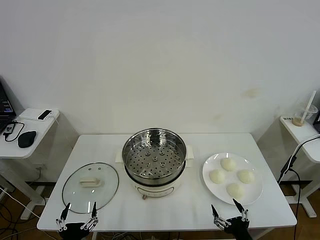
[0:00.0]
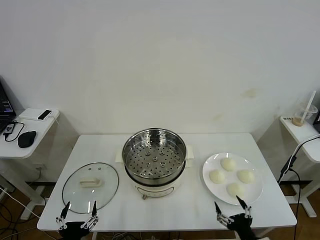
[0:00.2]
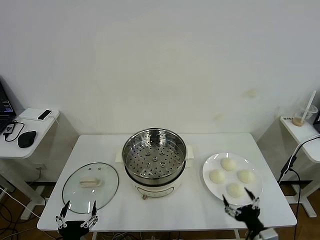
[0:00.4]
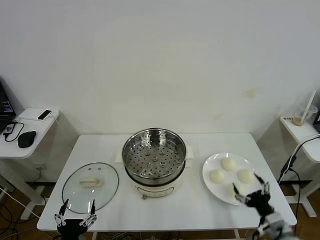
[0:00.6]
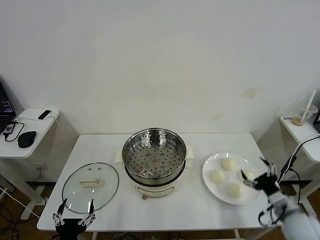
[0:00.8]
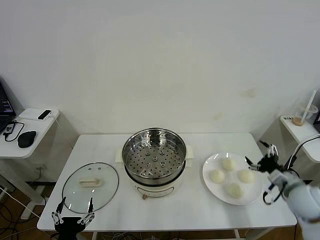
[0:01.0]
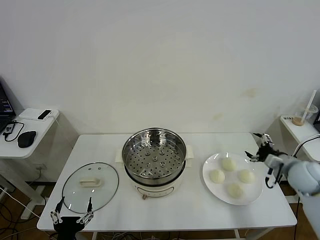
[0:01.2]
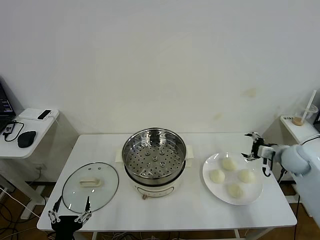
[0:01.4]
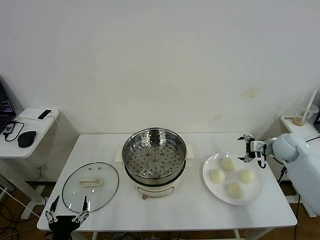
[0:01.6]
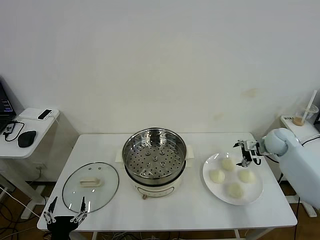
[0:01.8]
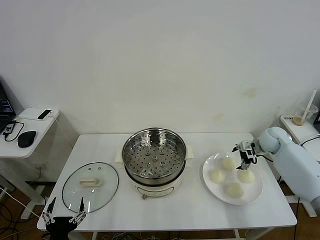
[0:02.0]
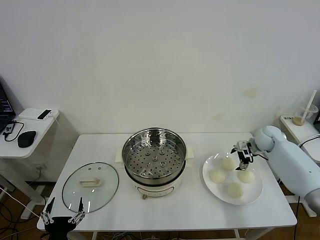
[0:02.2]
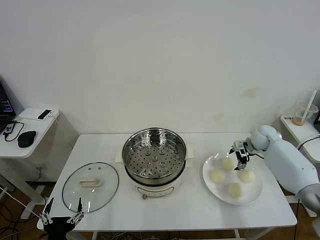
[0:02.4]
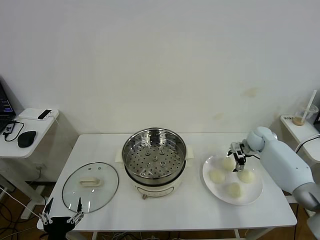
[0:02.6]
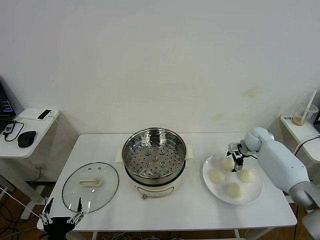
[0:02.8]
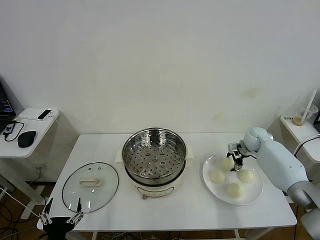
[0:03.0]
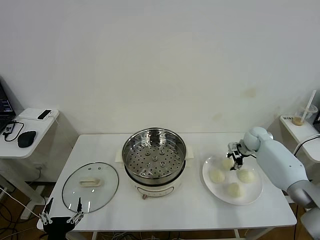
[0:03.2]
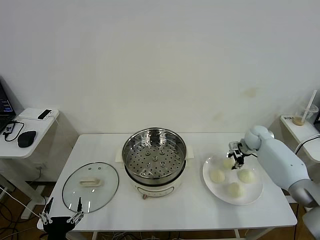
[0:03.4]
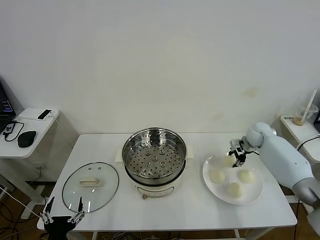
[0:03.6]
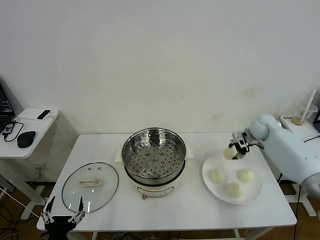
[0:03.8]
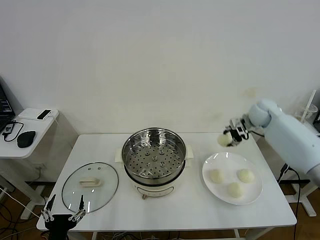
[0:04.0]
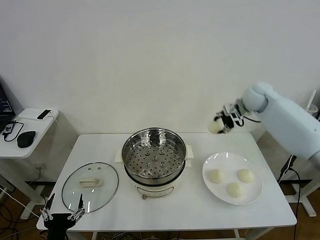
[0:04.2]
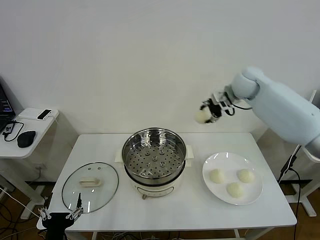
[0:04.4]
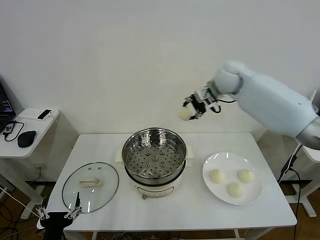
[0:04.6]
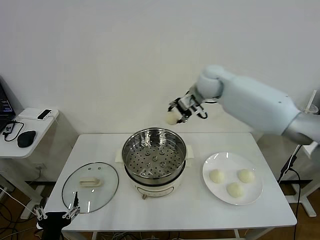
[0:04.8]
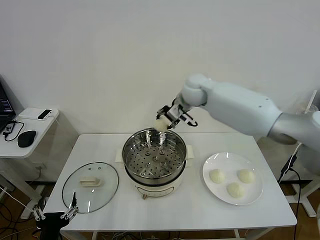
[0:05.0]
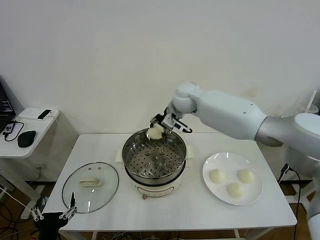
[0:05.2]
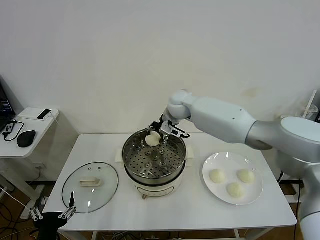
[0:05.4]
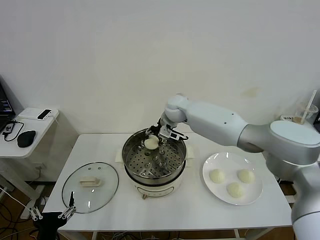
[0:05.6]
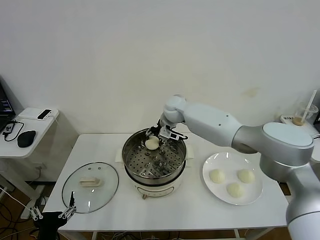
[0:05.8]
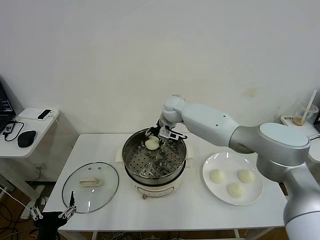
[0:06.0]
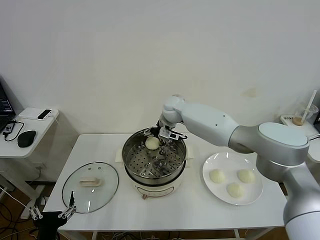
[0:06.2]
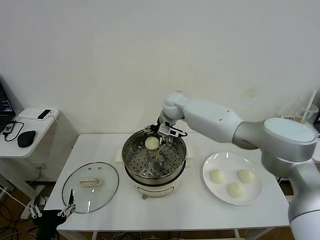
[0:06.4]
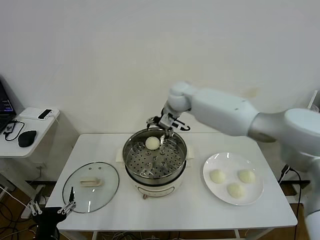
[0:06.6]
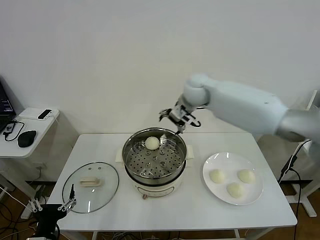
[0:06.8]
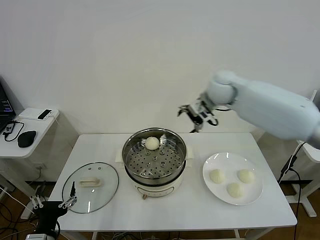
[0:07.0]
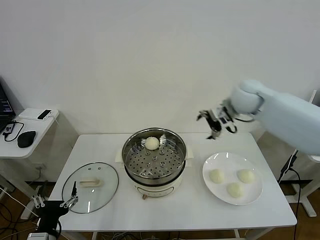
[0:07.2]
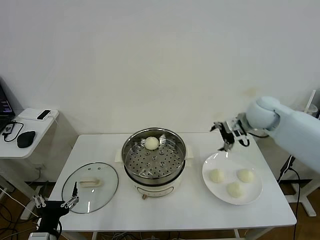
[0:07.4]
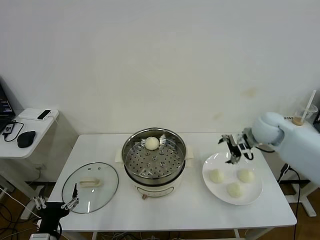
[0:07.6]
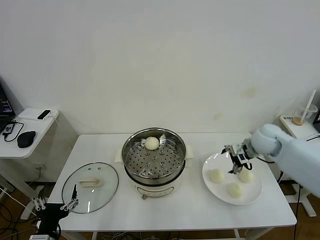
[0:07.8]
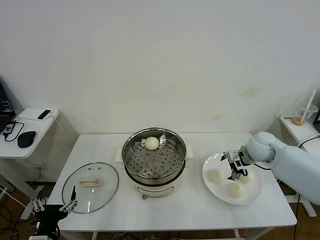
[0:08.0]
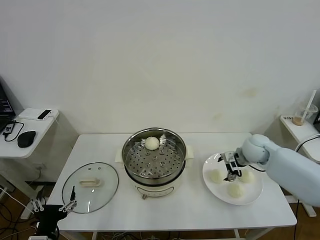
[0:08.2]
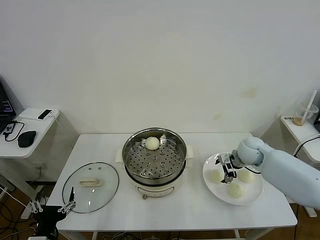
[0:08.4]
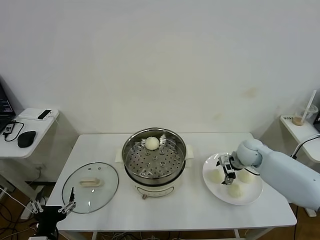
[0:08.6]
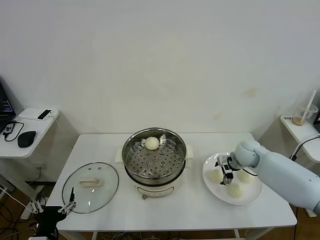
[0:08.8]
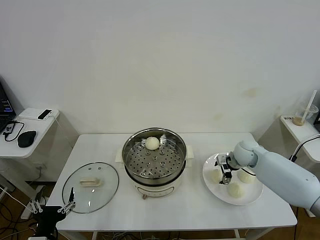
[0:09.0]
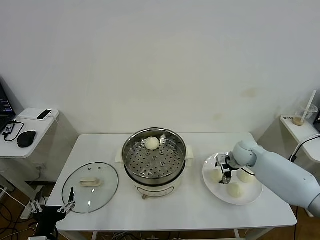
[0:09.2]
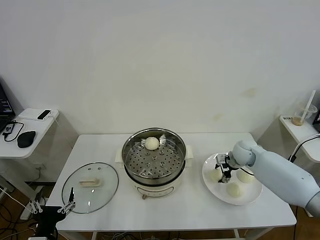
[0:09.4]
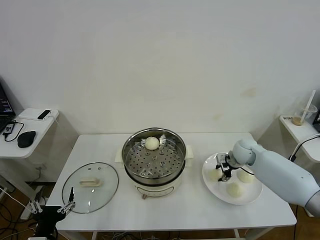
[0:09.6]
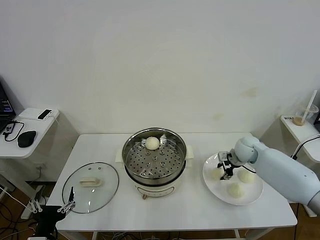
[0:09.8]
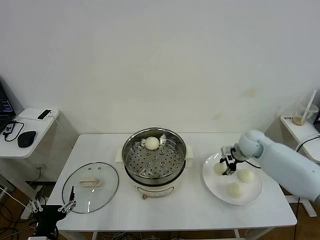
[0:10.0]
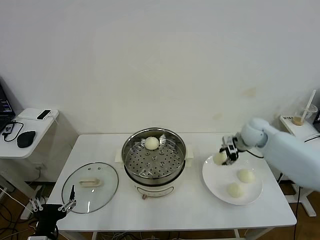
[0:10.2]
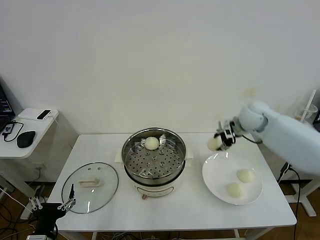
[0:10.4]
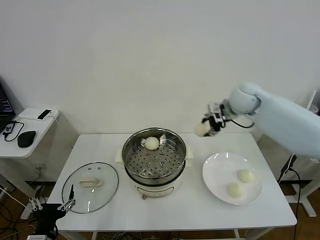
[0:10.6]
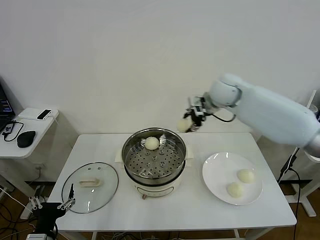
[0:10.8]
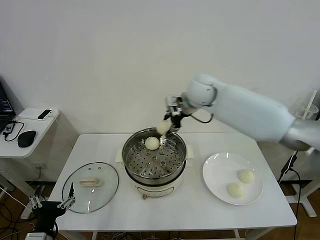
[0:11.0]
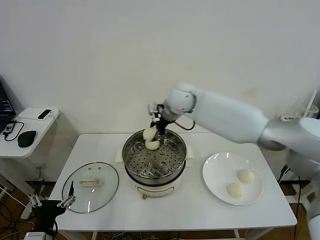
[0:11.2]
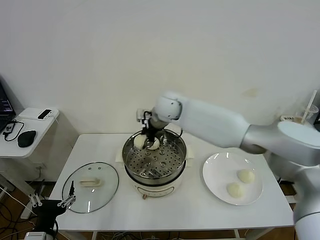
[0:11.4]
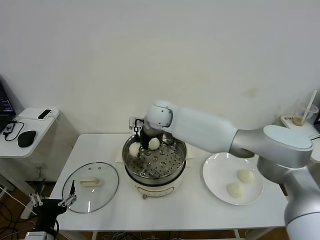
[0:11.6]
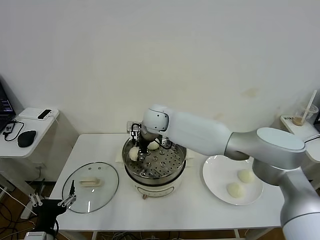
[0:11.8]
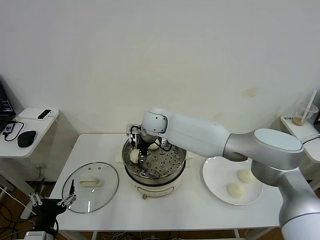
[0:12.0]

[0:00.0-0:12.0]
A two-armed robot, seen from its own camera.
Task of the whole recording: take steamed baozi put them in steamer then cover it.
Step, 0:00.0 to 0:03.2: Grasp the baozi in the plate with right gripper.
Step, 0:03.4 to 0:06.4: Place the baozi on the steamer with right gripper.
Step, 0:06.6 to 0:09.6: Grasp the baozi in the plate with right gripper.
0:01.6 to 0:03.0: The right gripper goes roughly 10 cm forward, downward and to the left.
0:03.0 to 0:04.4: The right gripper goes roughly 30 cm upward and to the left, and closes up.
0:04.4 to 0:06.0: The right gripper shifts some 25 cm to the left and downward.
0:06.0 to 0:07.6: The right gripper is displaced to the right and backward by some 30 cm, and opens up.
0:07.6 to 0:09.0: The right gripper heads downward, covering some 15 cm.
0:09.0 to 0:10.4: The right gripper shifts about 15 cm upward, and closes its fingers.
0:10.4 to 0:12.0: The right gripper travels to the left by some 35 cm.

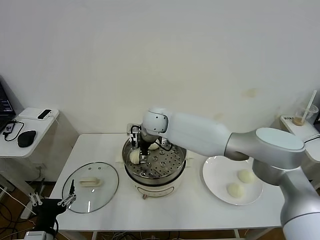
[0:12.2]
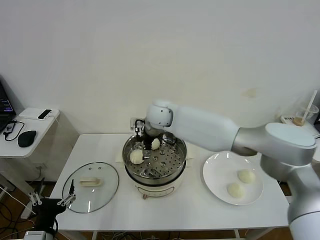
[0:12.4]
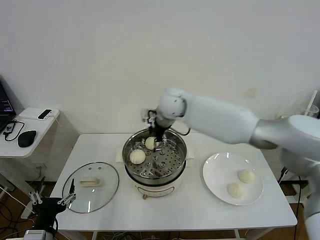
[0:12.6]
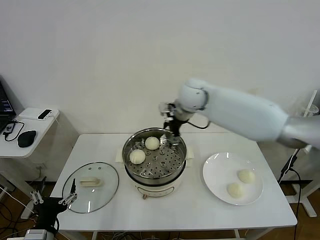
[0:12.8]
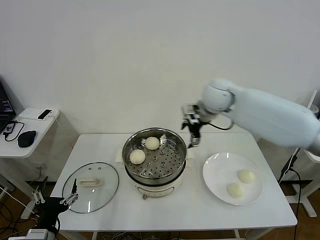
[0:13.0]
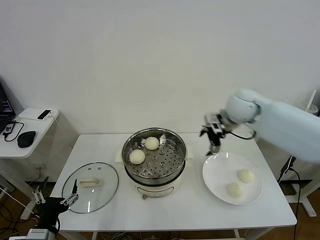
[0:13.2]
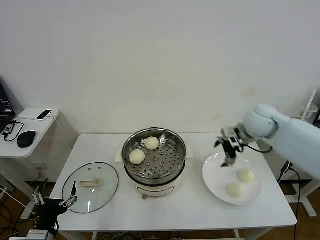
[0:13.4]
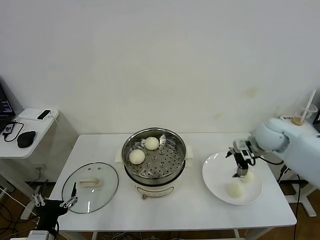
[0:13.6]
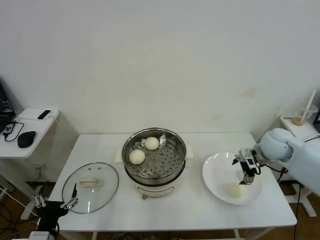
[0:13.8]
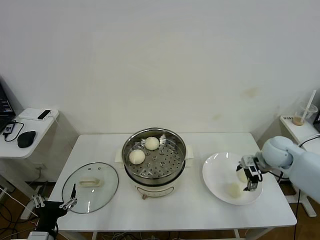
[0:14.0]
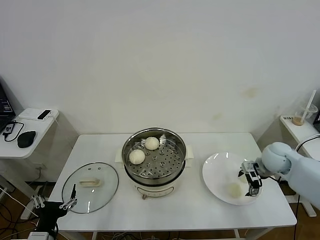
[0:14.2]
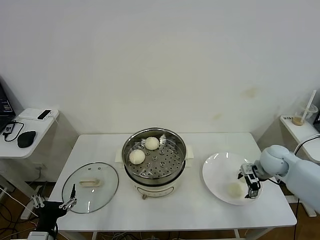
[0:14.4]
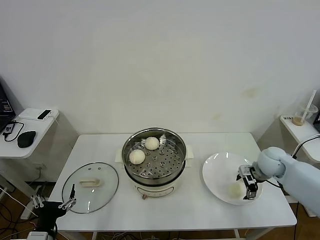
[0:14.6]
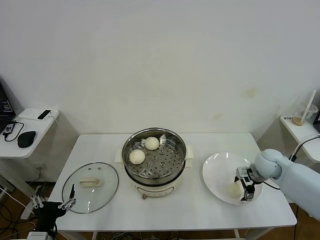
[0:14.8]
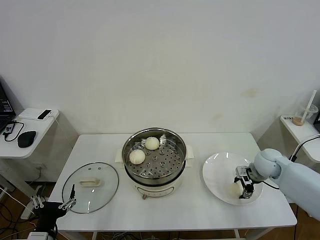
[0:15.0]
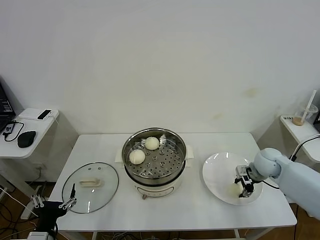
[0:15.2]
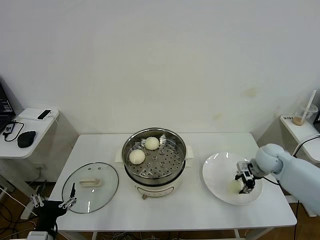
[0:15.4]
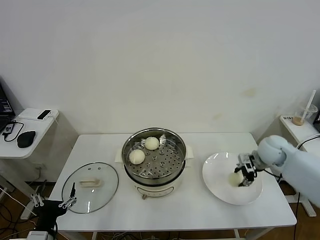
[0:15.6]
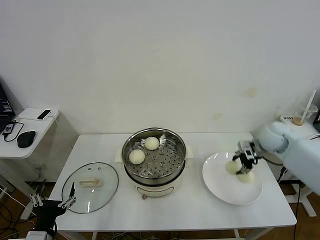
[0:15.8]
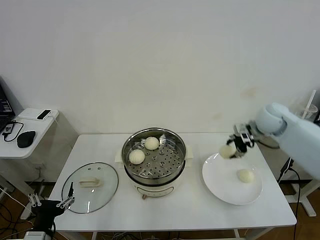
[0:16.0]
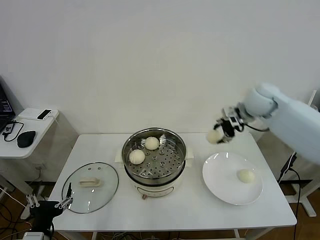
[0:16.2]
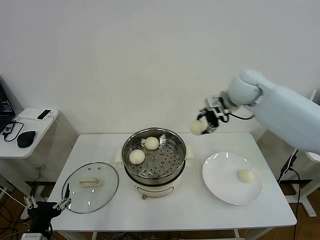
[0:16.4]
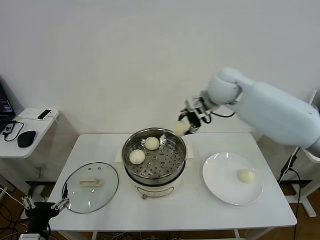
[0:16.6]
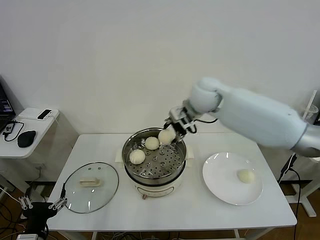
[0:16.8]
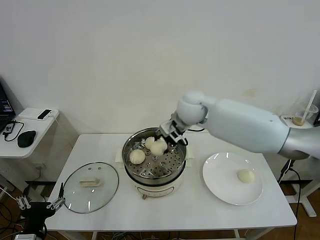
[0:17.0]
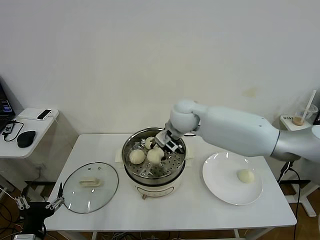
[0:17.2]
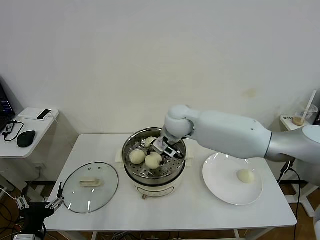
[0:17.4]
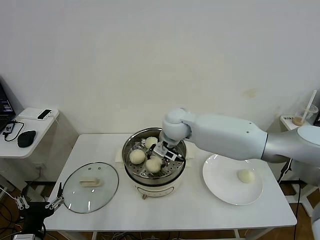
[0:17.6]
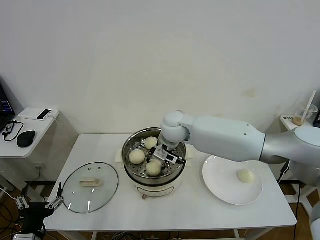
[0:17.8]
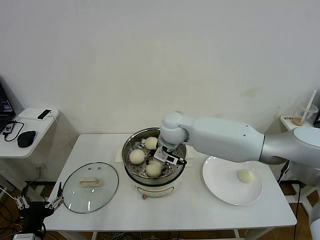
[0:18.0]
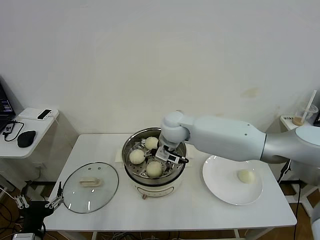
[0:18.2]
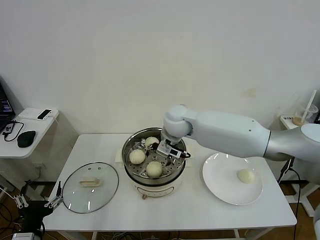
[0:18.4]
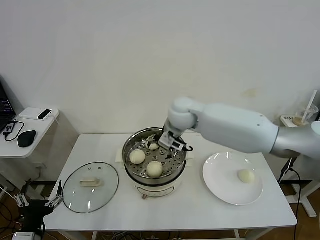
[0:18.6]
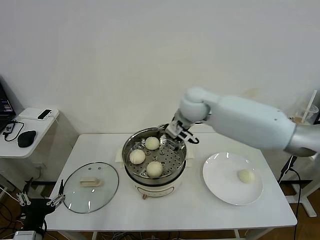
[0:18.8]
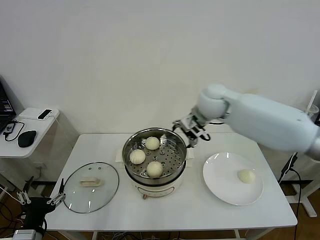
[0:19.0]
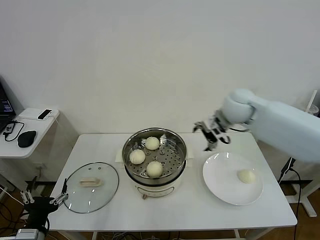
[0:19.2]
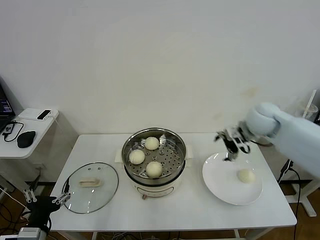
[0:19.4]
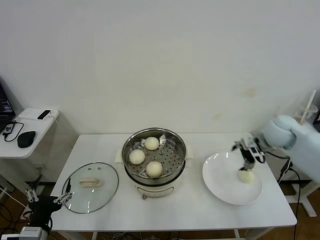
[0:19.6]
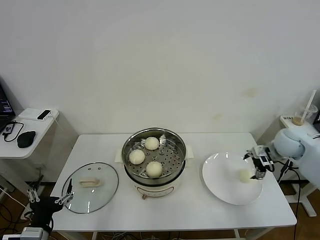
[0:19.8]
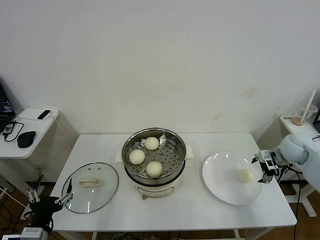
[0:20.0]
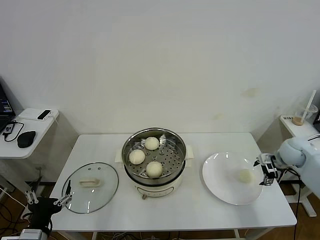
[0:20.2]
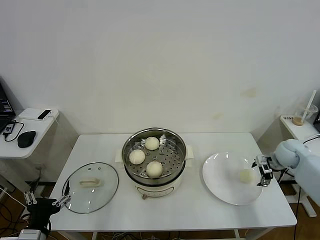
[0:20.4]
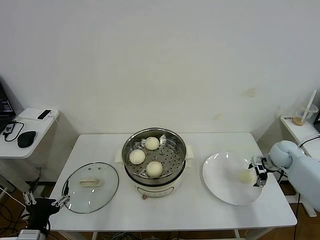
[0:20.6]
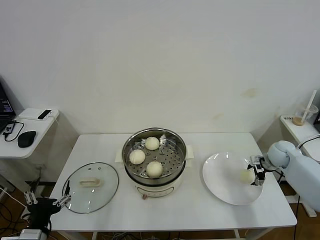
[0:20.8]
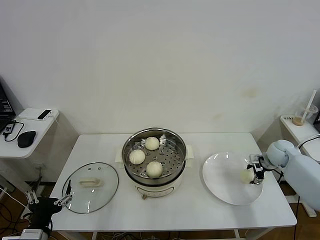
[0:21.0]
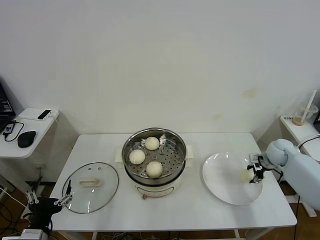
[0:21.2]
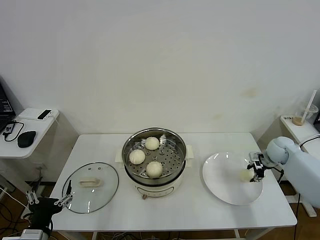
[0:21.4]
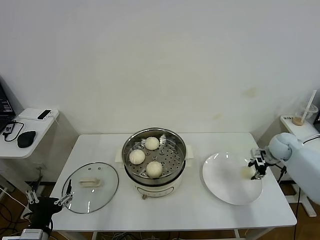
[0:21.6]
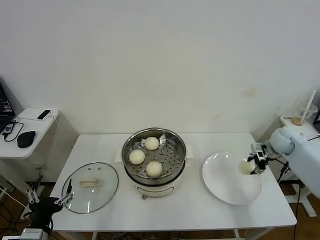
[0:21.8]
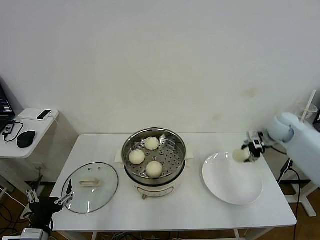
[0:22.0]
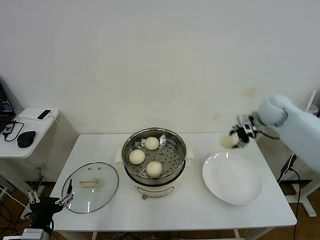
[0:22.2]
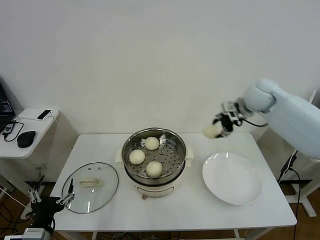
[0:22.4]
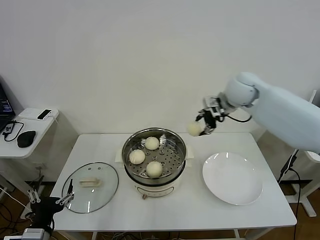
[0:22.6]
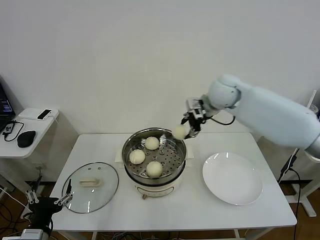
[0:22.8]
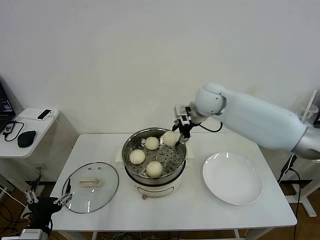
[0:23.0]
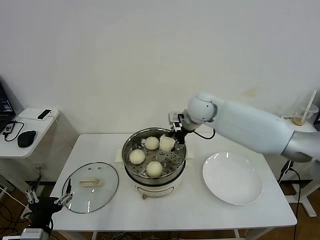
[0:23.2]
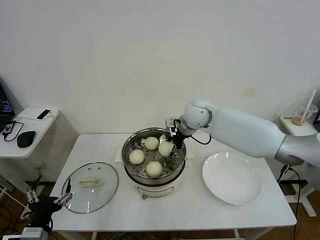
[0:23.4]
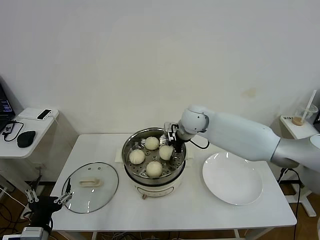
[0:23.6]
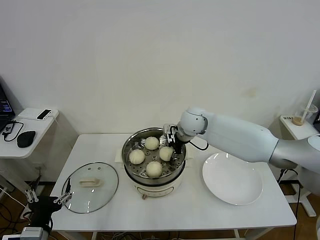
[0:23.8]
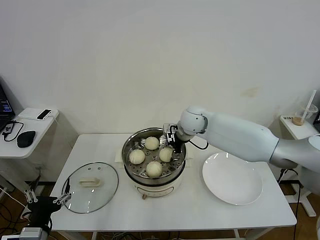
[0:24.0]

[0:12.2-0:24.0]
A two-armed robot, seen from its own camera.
Task of the whole recording: take steamed baozi put them in steamer then cover it.
Step, 0:12.6 to 0:15.2: Grasp the baozi in the plate with right gripper.
Step, 0:15.6 to 0:18.2: Place the baozi on the steamer with right gripper.
Step, 0:18.4 to 0:21.4: Grasp the baozi in the plate with right gripper.
0:12.2 to 0:13.6: The right gripper goes approximately 35 cm to the right.
0:13.6 to 0:15.2: The right gripper goes roughly 10 cm downward, and closes up.
0:15.2 to 0:16.6: The right gripper shifts roughly 30 cm upward and to the left.
0:16.6 to 0:18.2: The right gripper heads to the left and downward, covering roughly 20 cm, and opens up.
0:18.2 to 0:19.6: The right gripper goes roughly 35 cm to the right.
0:19.6 to 0:21.0: The right gripper is displaced downward and to the right by roughly 15 cm, and closes.
0:21.0 to 0:22.6: The right gripper shifts roughly 35 cm upward and to the left, and closes.
0:22.6 to 0:24.0: The right gripper travels to the left and downward by roughly 20 cm.
